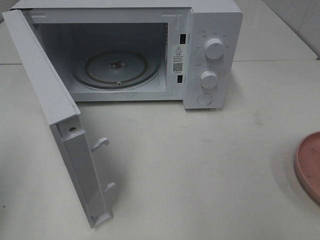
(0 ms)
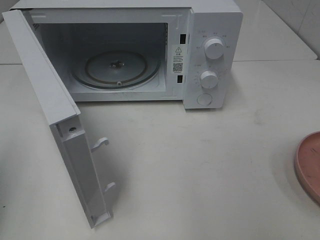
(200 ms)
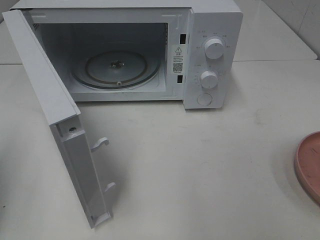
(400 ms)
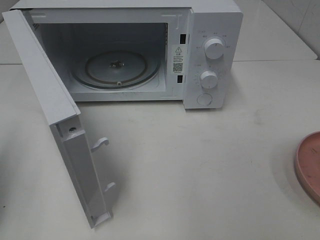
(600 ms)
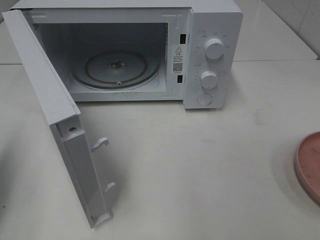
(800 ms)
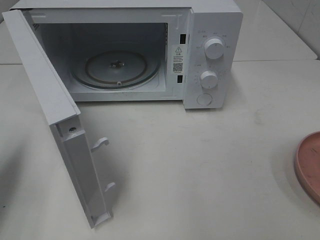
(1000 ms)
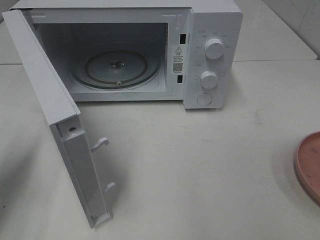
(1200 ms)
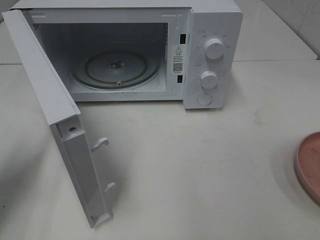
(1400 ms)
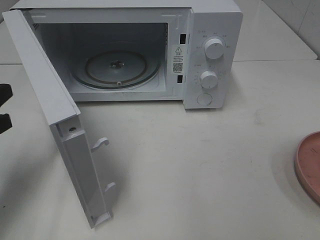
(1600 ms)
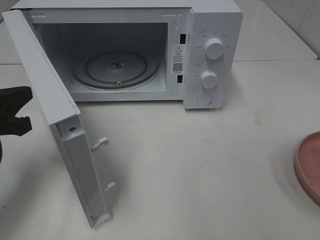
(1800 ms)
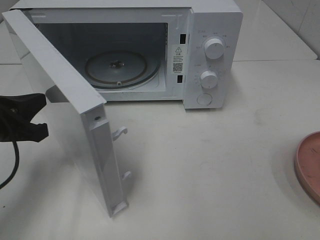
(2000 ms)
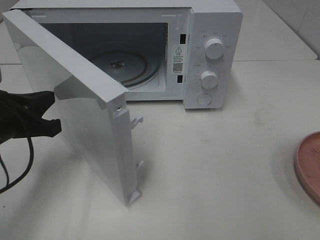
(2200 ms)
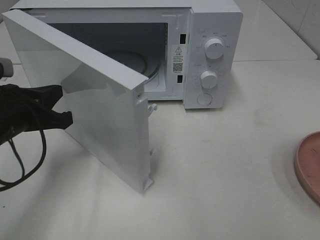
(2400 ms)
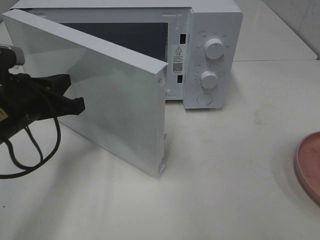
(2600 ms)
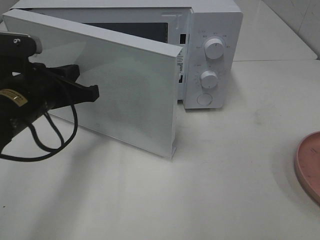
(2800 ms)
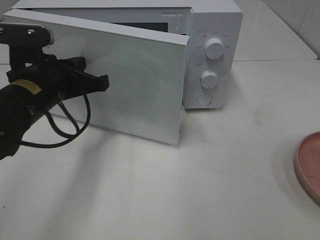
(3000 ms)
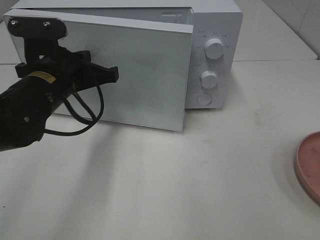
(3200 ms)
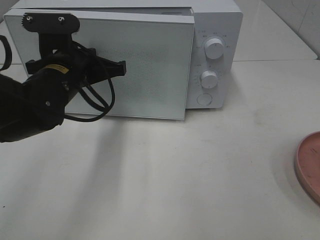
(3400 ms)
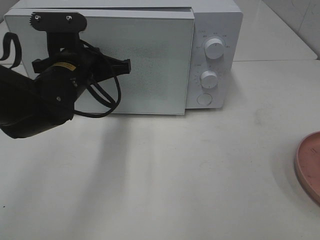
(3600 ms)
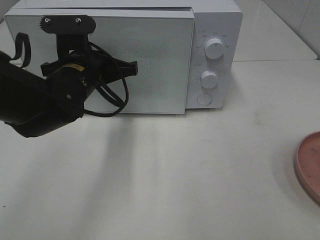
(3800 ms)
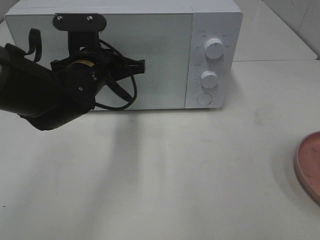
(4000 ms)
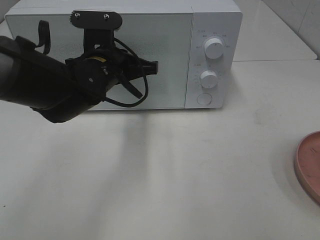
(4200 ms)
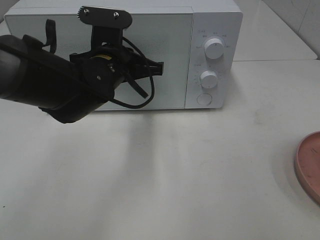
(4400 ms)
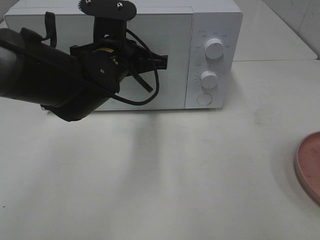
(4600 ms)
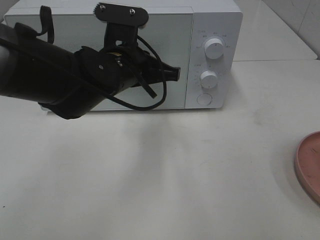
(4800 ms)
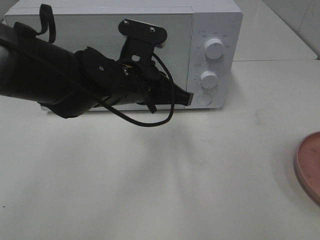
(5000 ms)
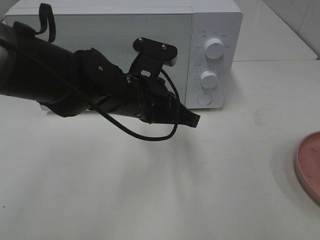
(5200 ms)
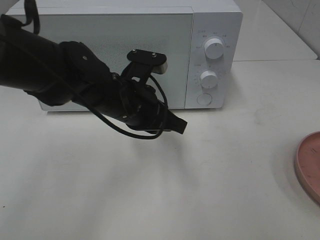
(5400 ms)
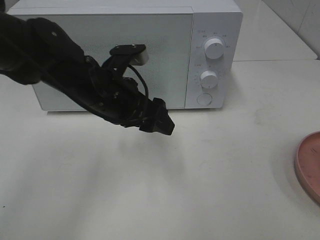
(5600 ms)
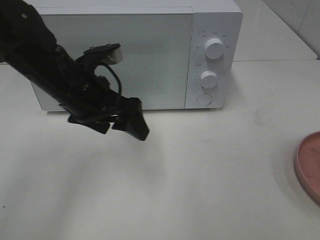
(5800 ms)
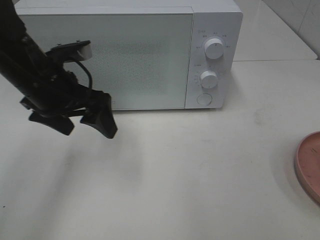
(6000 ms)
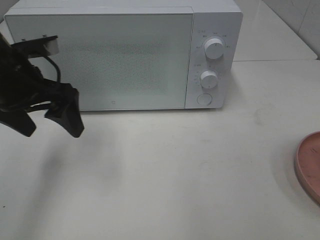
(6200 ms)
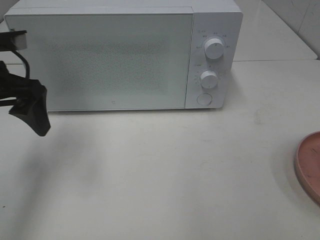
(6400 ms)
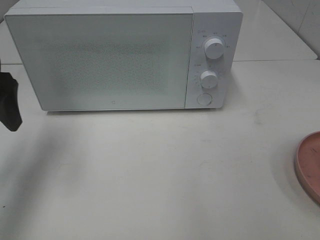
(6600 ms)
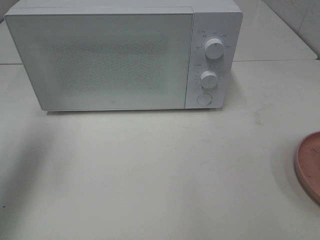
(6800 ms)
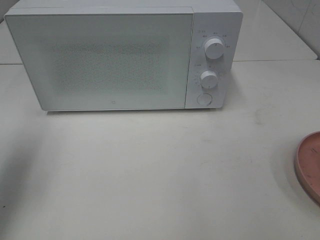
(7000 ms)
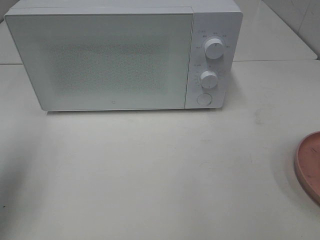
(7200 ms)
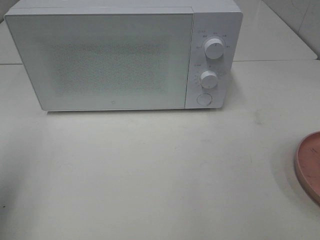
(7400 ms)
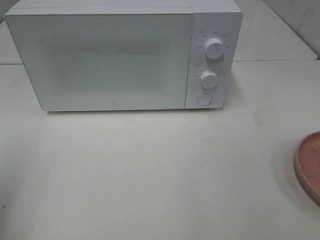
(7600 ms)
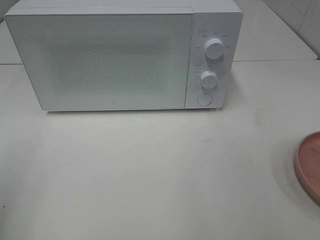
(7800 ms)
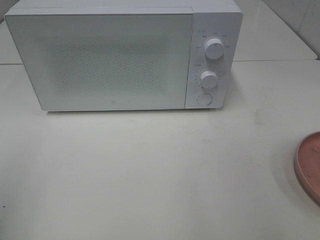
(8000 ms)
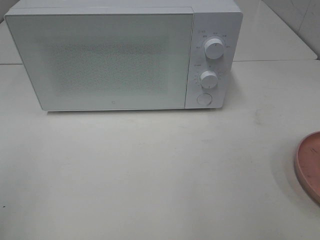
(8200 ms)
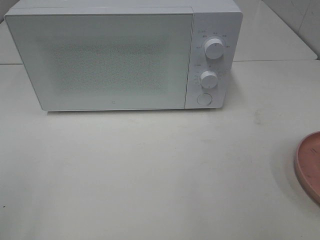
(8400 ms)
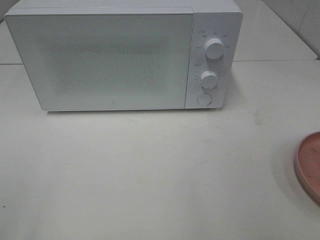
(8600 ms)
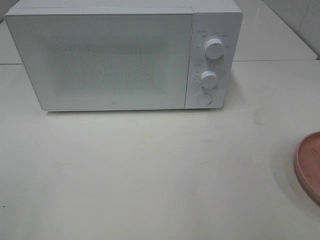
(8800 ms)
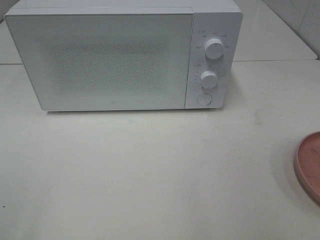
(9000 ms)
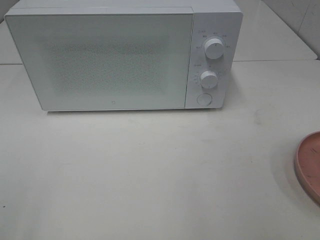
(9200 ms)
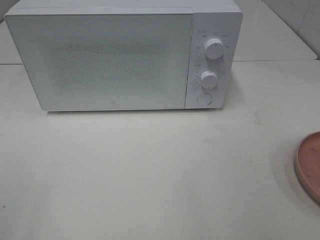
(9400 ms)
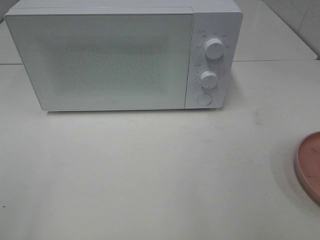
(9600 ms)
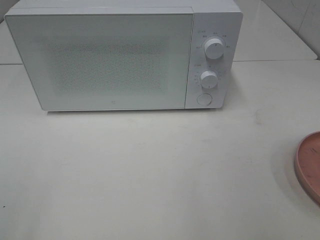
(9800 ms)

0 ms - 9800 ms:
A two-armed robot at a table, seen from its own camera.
Task of the whole recording: Heat the burger.
Step, 0 ms - 5200 ms: Left hand: close the microwave door.
0 ms - 1400 ms: The left gripper heads forward and downward, covering approximately 15 cm.
1400 ms - 2800 ms: The left gripper moves to the right and forward, some 15 cm.
2800 ms - 4200 ms: The left gripper travels to the right and forward by about 10 cm.
4200 ms - 5600 ms: The left gripper opens.
5600 ms - 7000 ms: The left gripper travels to the left and upward by roughly 25 cm.
7000 ms - 8400 ms: The left gripper moves backward, some 20 cm.
